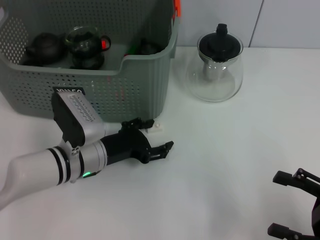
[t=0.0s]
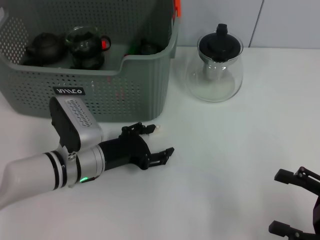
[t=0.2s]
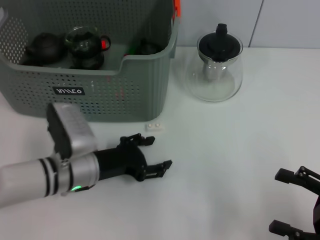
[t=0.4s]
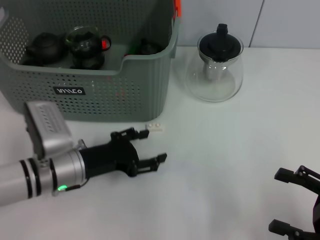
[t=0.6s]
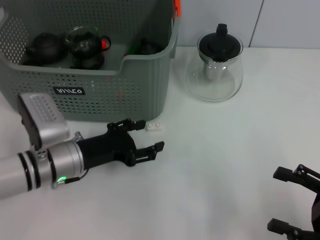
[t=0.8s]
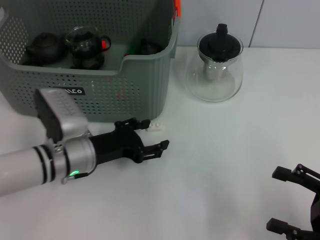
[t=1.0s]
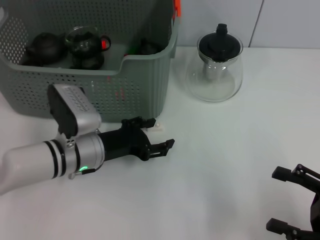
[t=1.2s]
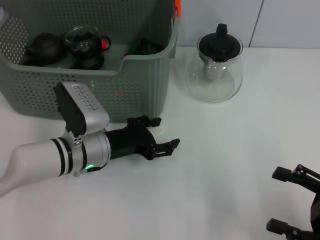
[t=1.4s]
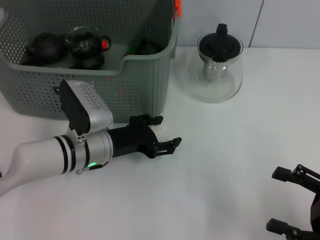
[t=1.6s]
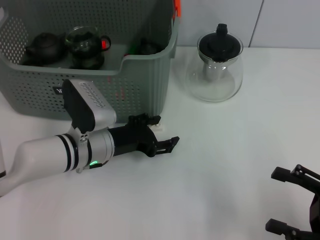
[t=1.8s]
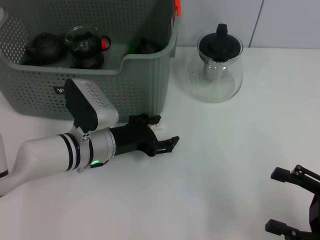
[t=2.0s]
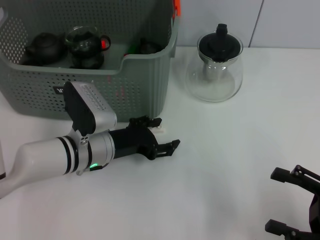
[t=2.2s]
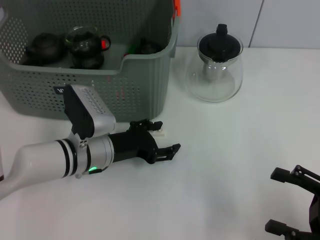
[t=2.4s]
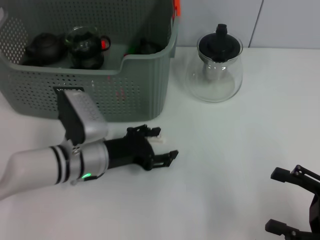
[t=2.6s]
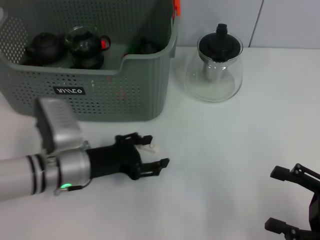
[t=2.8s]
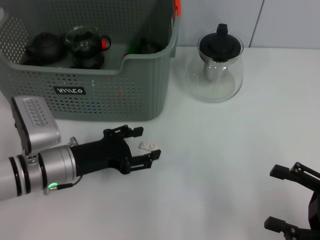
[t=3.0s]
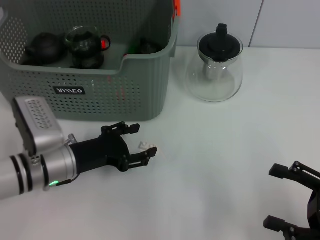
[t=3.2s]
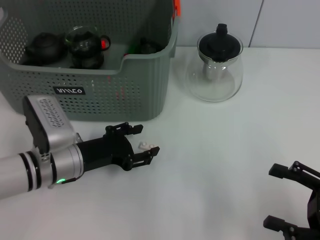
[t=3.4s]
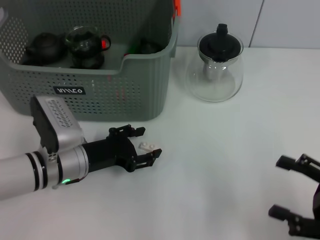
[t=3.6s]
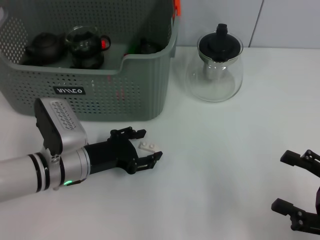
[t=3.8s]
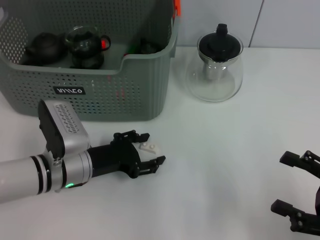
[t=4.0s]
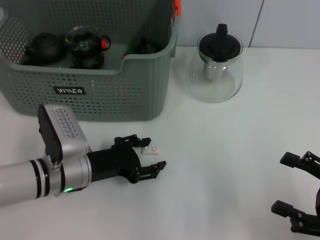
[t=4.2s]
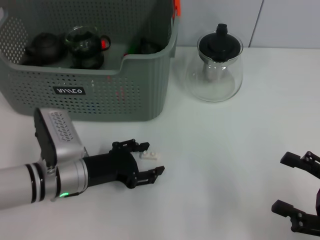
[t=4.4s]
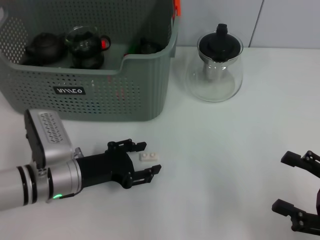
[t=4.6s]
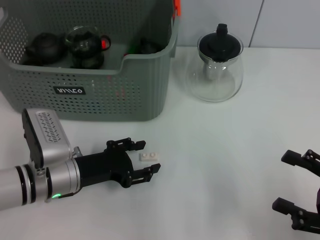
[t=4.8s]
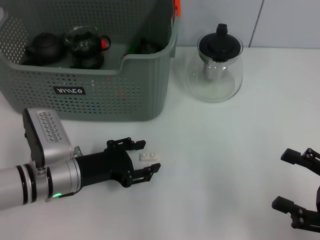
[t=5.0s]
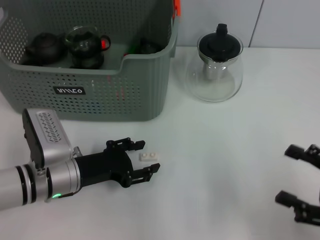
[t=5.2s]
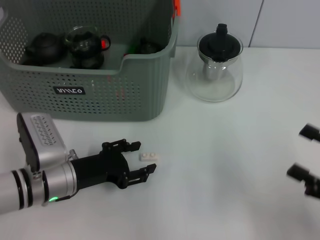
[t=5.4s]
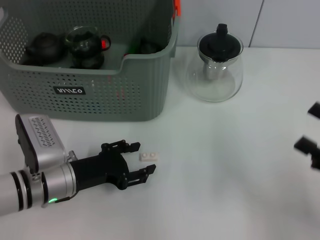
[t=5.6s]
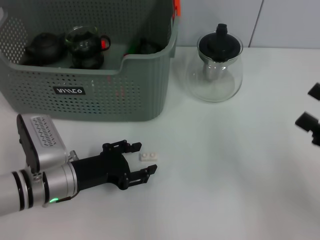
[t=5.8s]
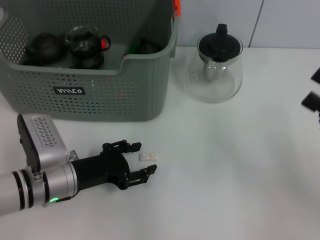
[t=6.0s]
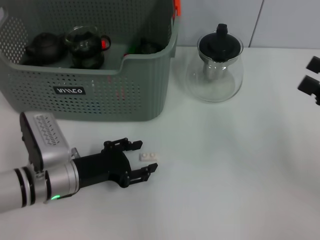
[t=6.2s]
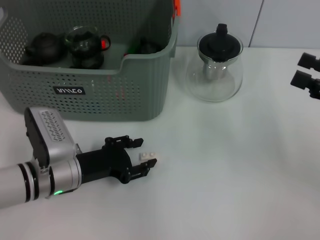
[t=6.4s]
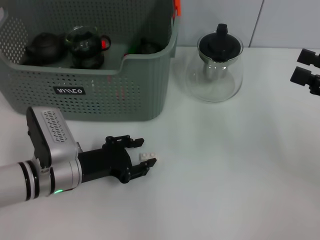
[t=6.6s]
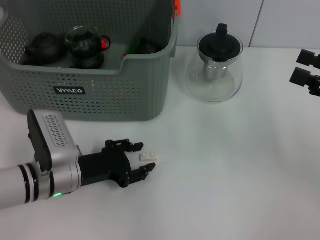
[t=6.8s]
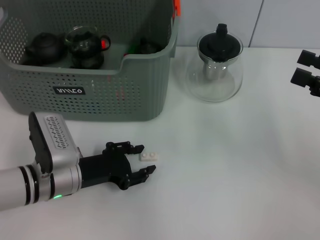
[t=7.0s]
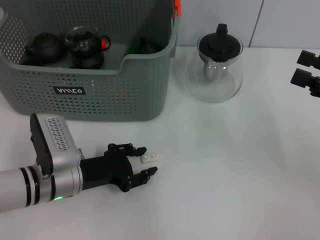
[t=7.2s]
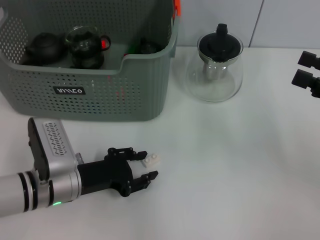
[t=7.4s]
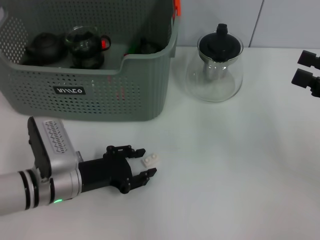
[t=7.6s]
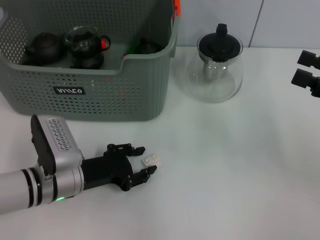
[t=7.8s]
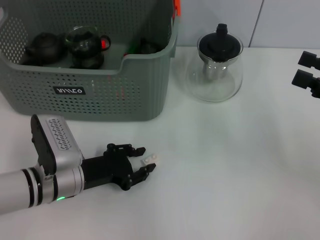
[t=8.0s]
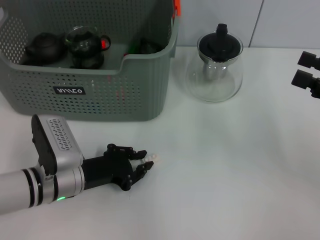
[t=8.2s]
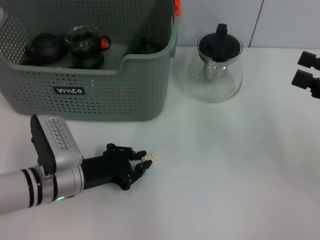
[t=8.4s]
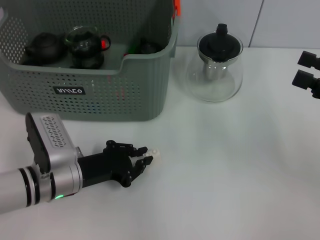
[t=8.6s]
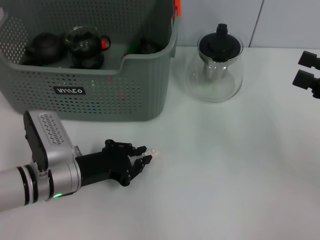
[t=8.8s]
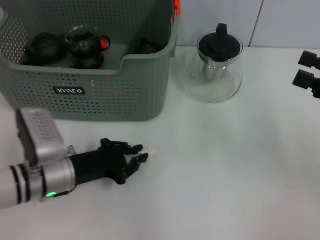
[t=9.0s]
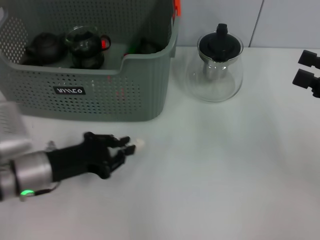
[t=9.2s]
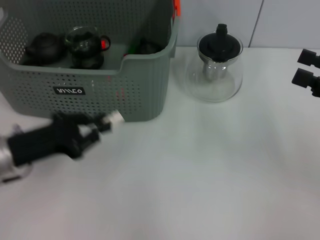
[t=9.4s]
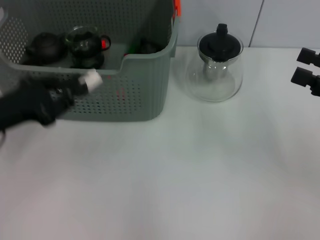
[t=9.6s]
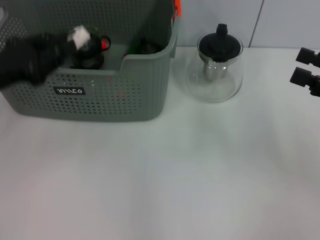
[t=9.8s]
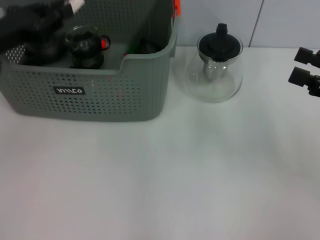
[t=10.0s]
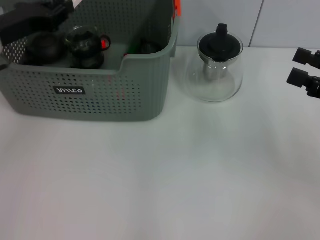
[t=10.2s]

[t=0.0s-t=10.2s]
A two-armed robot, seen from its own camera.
Task of the whole recording: pick up the teacup on the table and place it into the storage bin, pick up the block on the table and place it into the storage bin.
Step, t=0.0s to t=8.8s: Grasp the white block with left gripper.
t=0.0s to t=1.4s: The grippers make only small movements.
t=1.4s to t=3.0s: The left gripper shifts by some 5 cm.
t=3.0s to t=4.4s: The grippers move only a little.
t=4.4s to t=5.8s: The right gripper ends up about 5 cm from where it was.
t=5.8s to t=7.2s: The right gripper goes roughly 10 cm forward and upward.
t=7.2s to t=8.8s: The left gripper closes.
t=8.8s to t=10.2s: The left gripper travels upward, forward and to the left by roughly 20 cm.

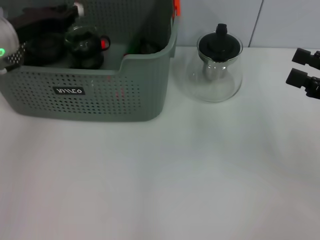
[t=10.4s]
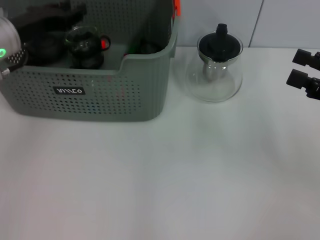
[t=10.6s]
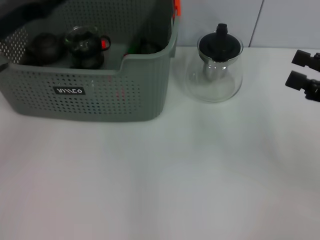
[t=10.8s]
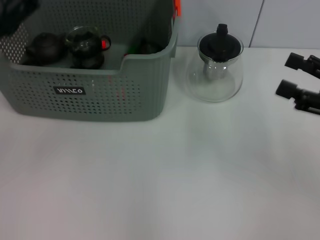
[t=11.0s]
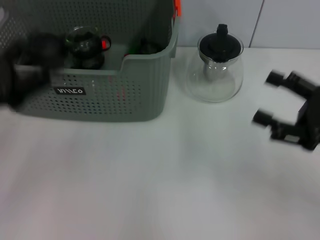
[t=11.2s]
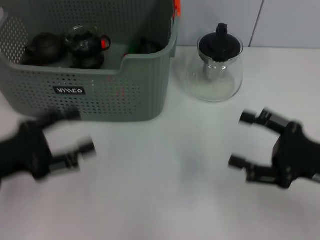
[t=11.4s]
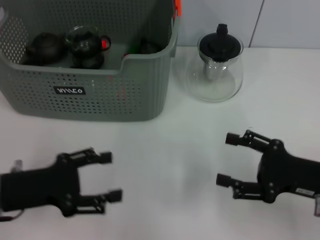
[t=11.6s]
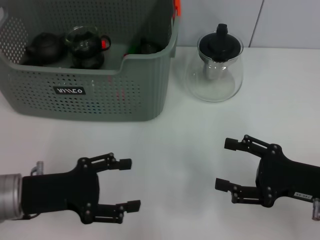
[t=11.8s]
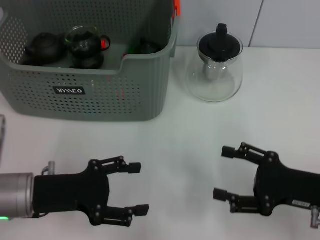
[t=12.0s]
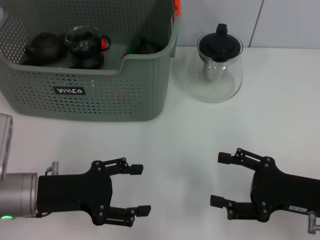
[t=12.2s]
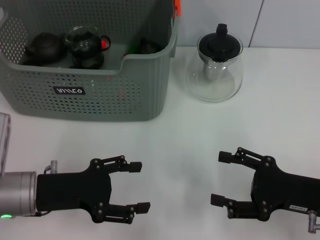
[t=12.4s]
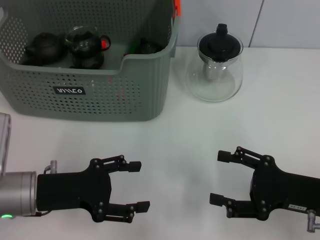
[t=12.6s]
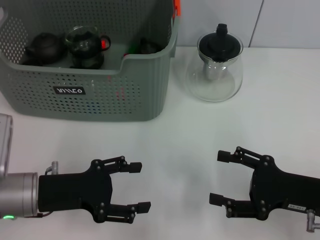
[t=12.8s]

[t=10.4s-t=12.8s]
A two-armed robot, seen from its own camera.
Task of the whole recording: pick up the teacup on the table and place it into the storage bin, pick up the block on the table and place it into the storage bin.
t=10.4s to t=11.6s: The right gripper shifts approximately 10 cm downward and to the left. Meanwhile the left gripper travels backward and downward by about 20 cm, and opens.
t=11.6s to t=12.8s: There are only small adjustments of the grippers.
